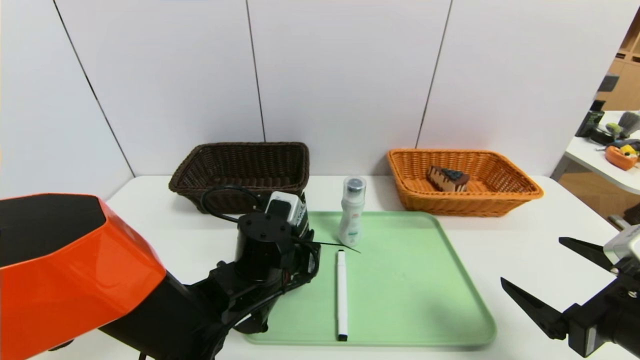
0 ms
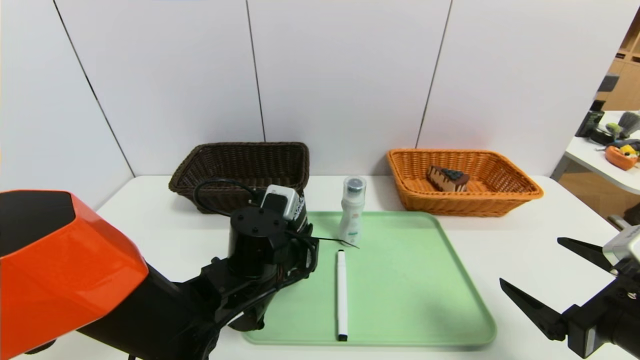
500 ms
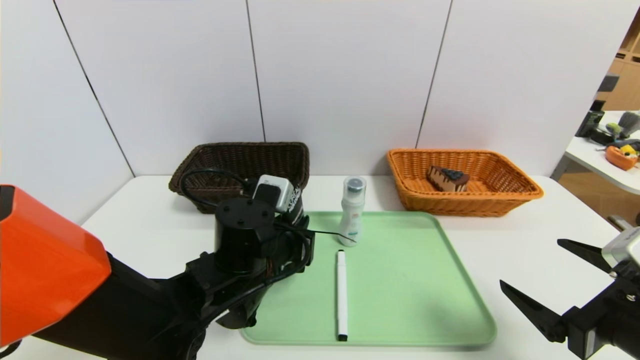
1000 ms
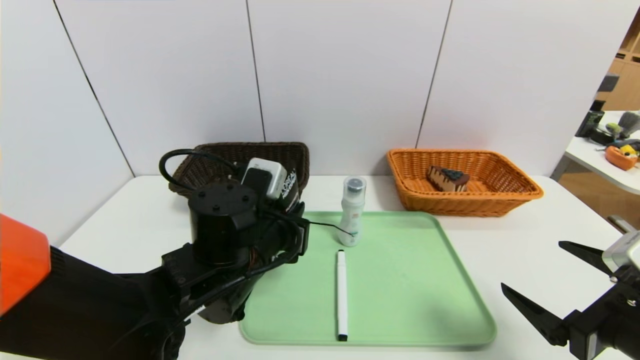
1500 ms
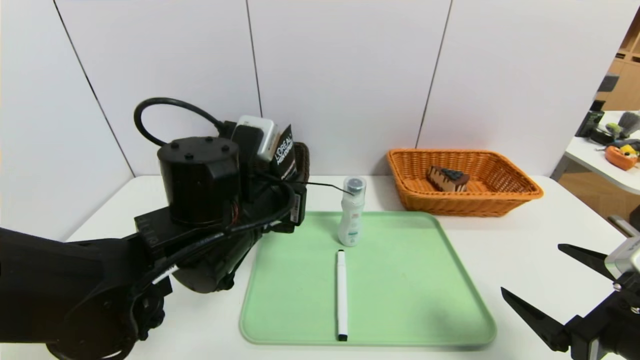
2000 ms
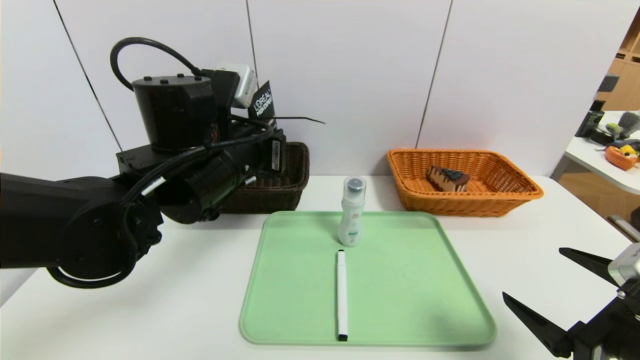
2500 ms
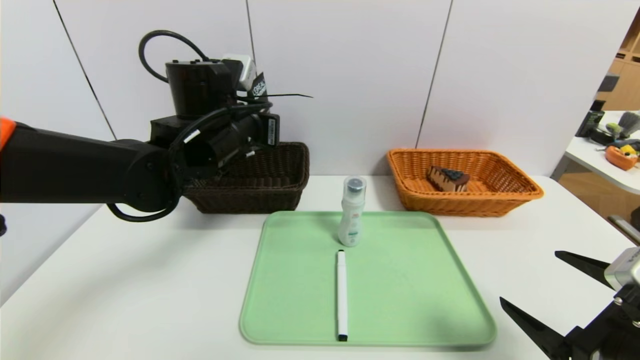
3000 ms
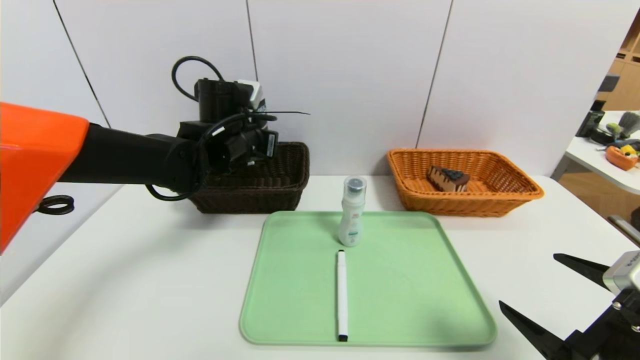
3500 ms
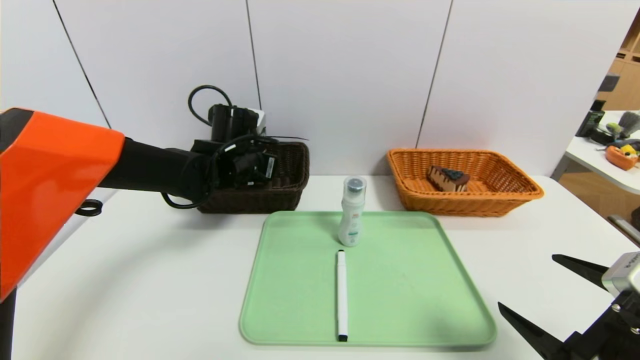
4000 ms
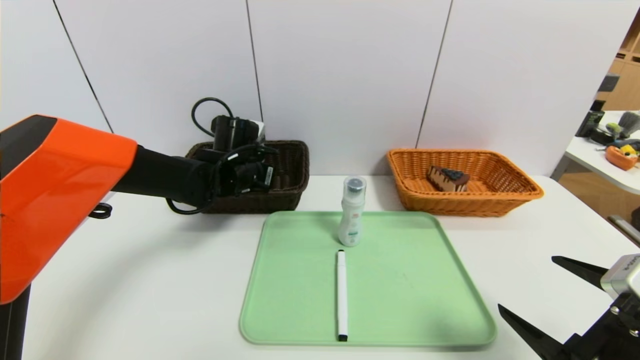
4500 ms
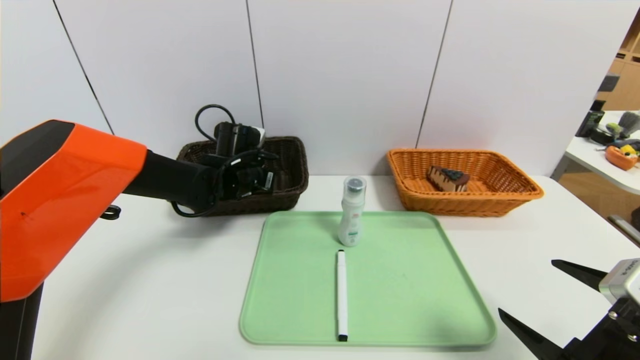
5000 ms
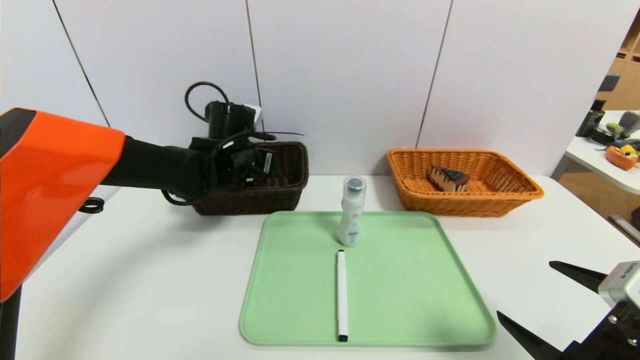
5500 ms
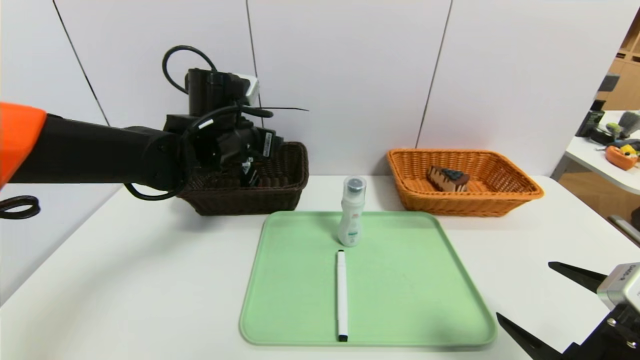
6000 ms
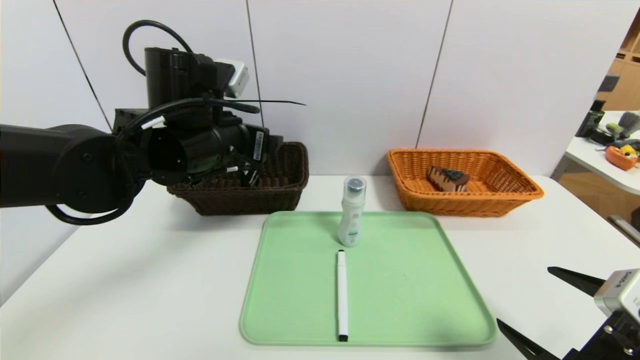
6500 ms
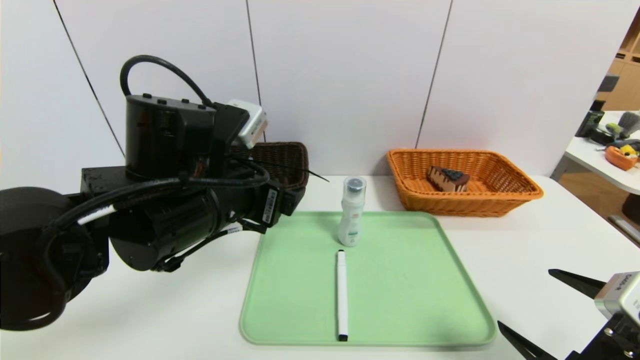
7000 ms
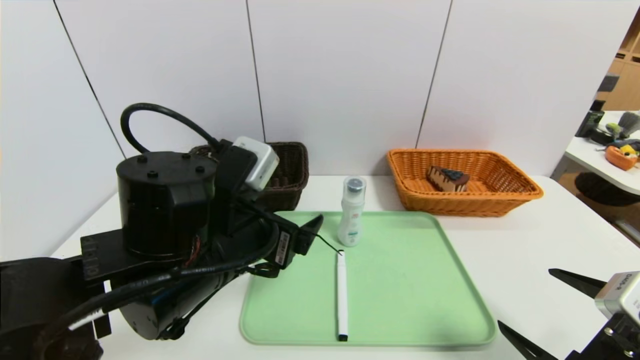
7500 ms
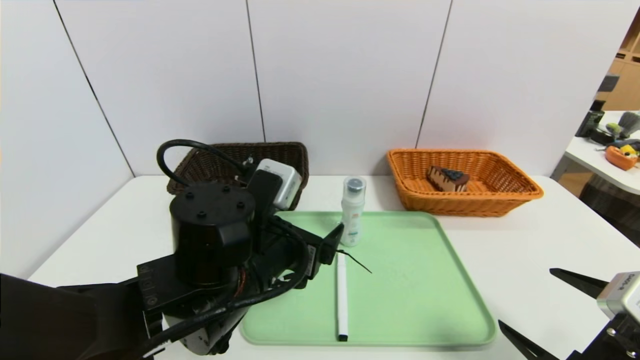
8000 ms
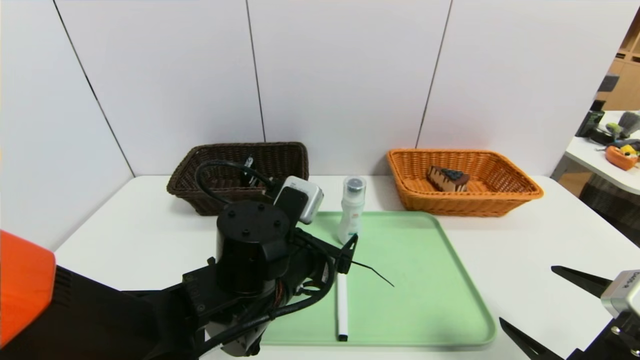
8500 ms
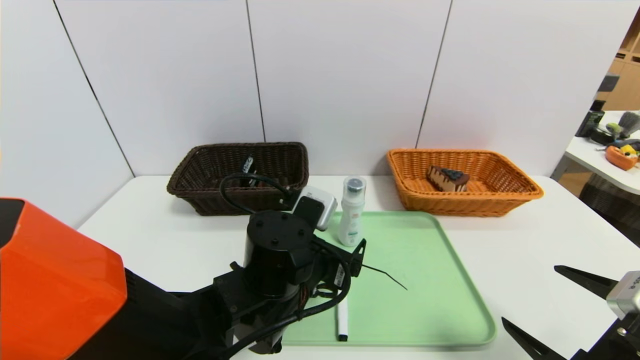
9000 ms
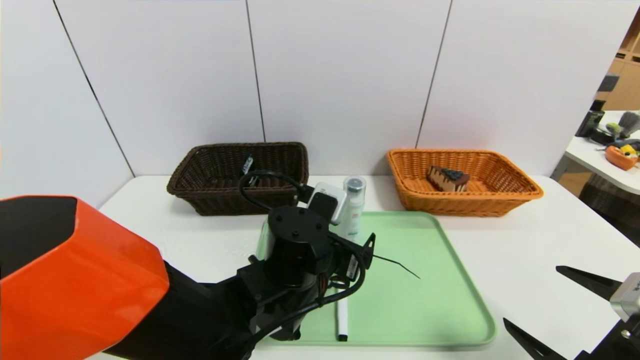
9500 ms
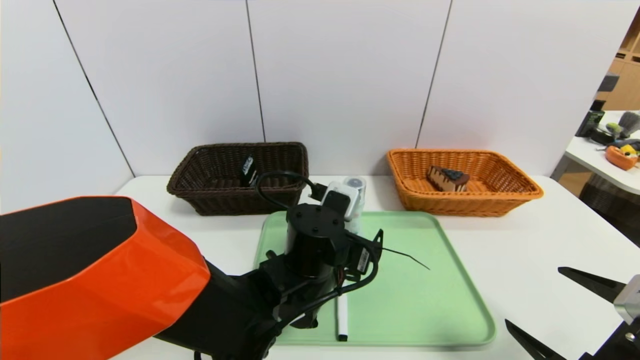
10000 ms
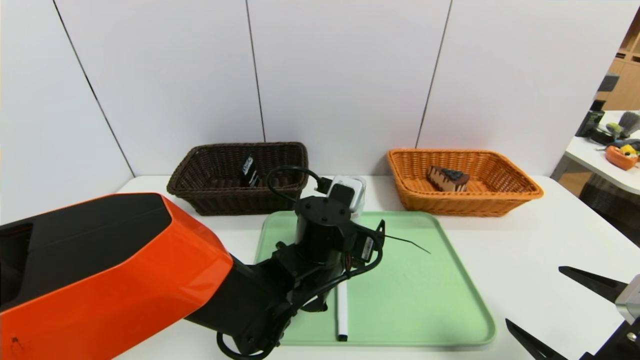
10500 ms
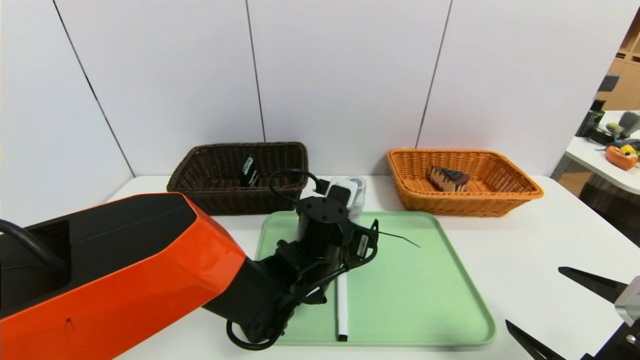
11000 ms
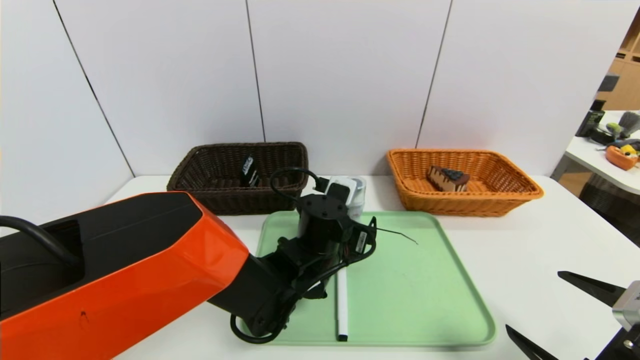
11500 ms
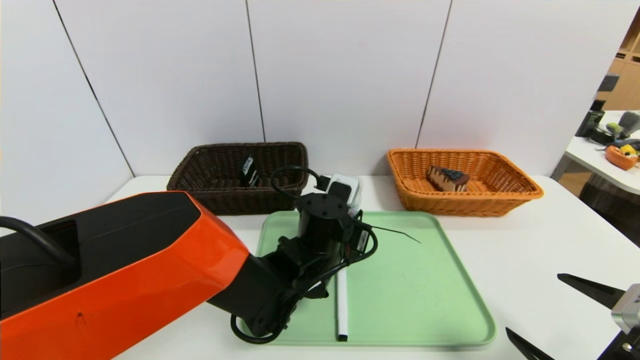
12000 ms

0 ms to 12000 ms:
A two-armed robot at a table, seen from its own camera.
Task of the whole recording: place the food in the right basket with the right gripper, and place the non food items in the left basket with the left gripper.
Step, 0 ms to 6500 ms: Grasp the soft cleanser and put it in the left basket.
0 ms to 2000 ms: The left gripper shifts approximately 10 cm upward.
2000 ms to 4000 ms: The left gripper moves forward, roughly 15 cm.
4000 ms to 6000 ms: The left gripper shifts about 5 cm upward, and opens.
6000 ms to 8000 ms: The left gripper travels backward by about 15 cm.
8000 ms to 10000 ms: The left gripper shifts approximately 10 cm to the right and downward.
10000 ms to 12000 ms: The left gripper closes.

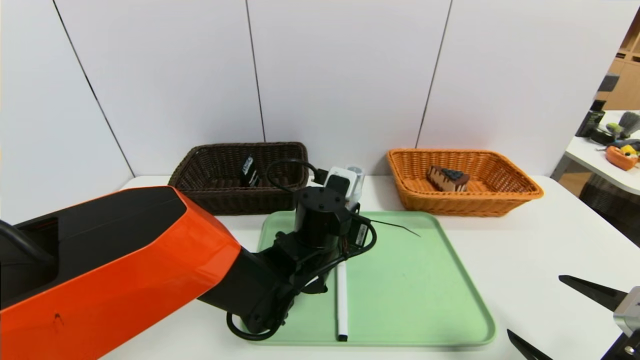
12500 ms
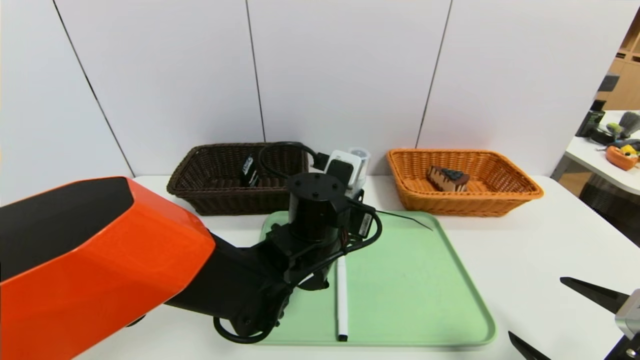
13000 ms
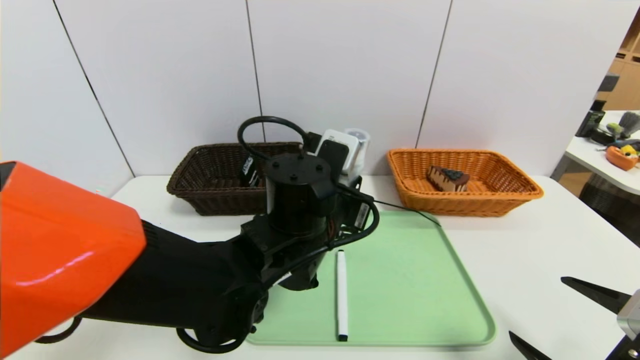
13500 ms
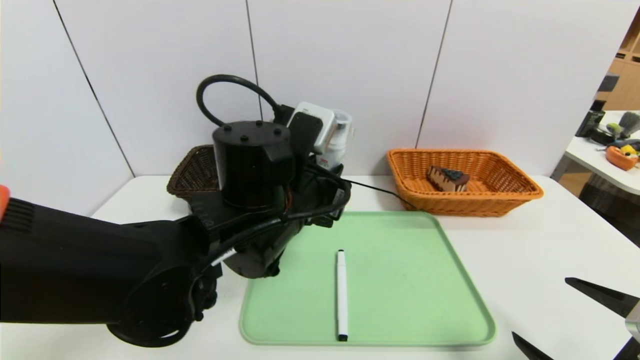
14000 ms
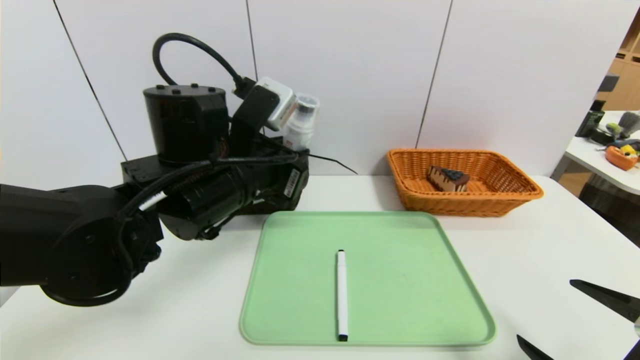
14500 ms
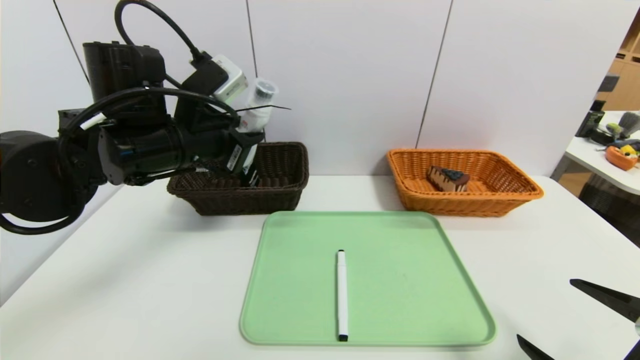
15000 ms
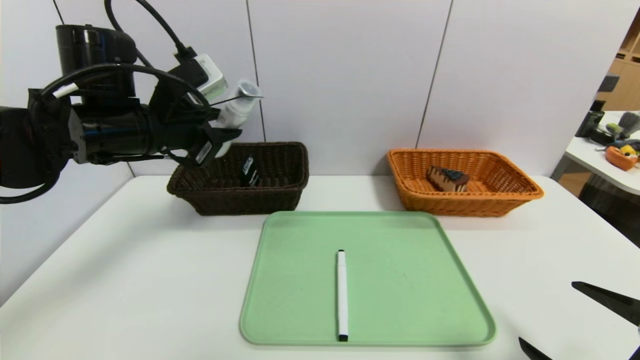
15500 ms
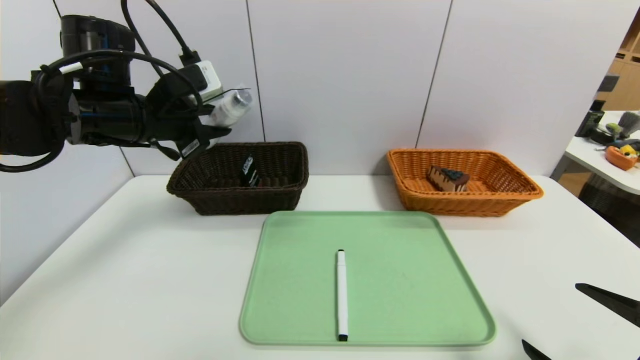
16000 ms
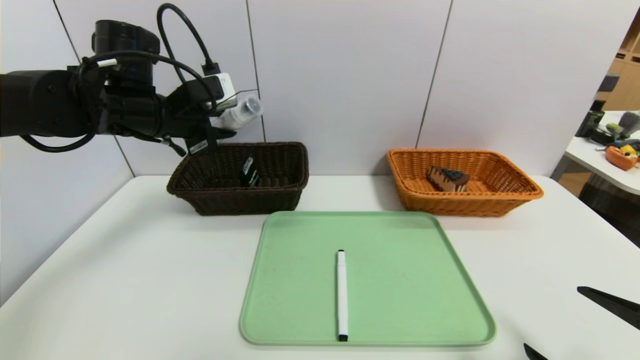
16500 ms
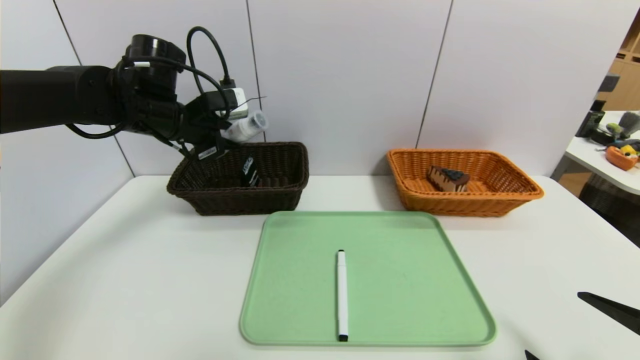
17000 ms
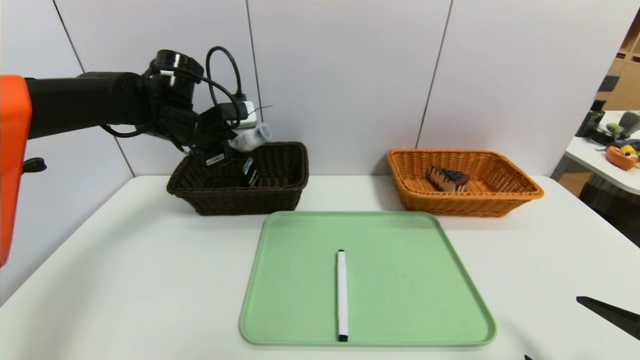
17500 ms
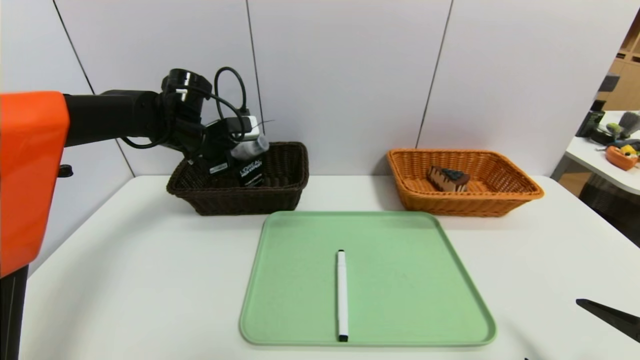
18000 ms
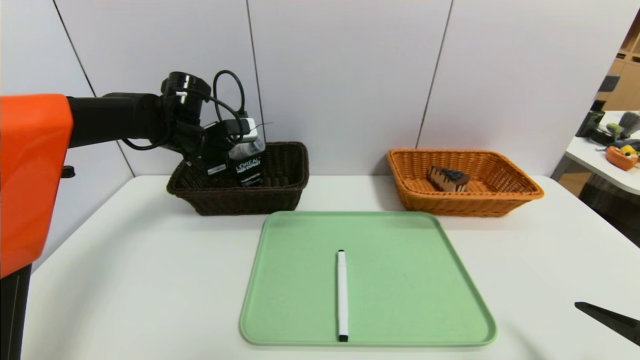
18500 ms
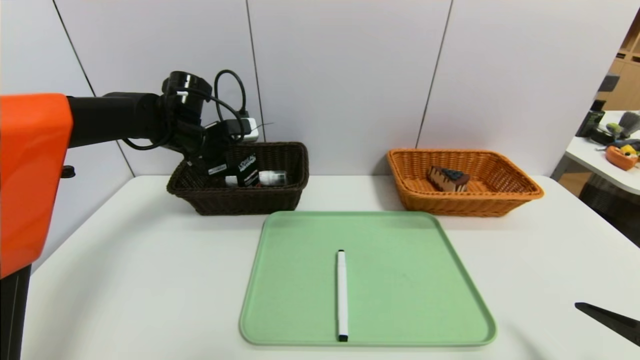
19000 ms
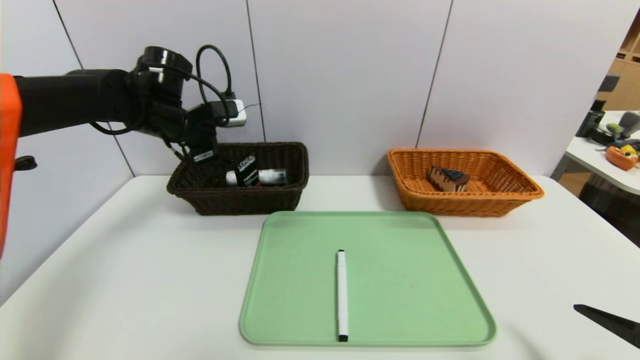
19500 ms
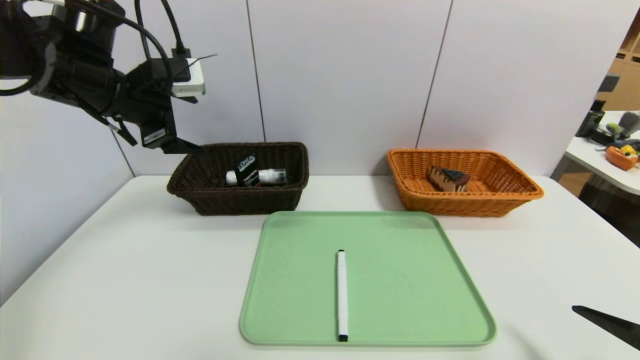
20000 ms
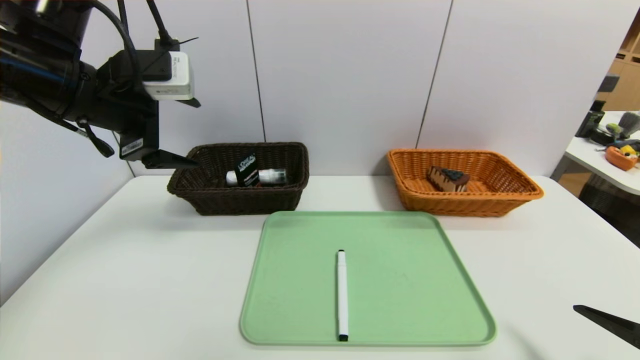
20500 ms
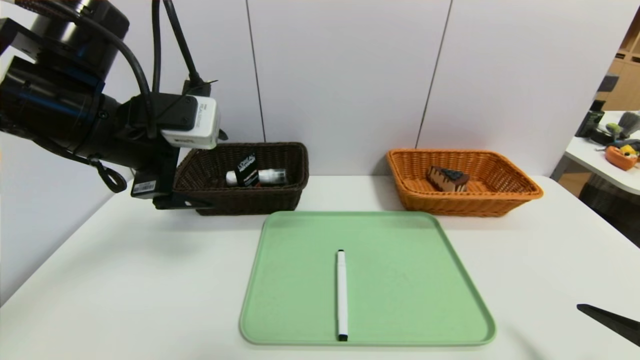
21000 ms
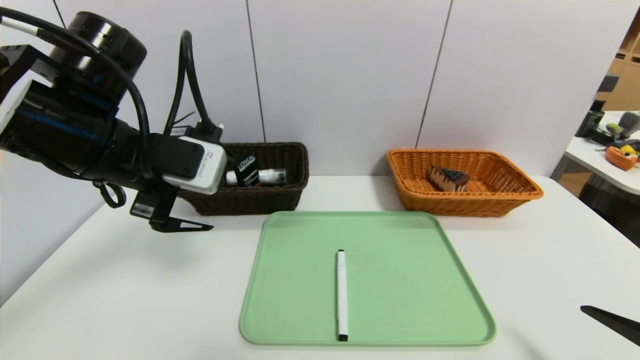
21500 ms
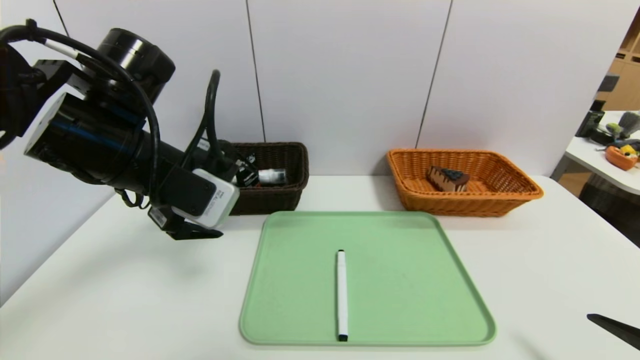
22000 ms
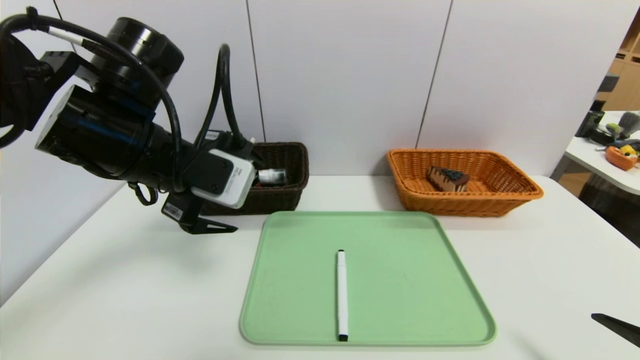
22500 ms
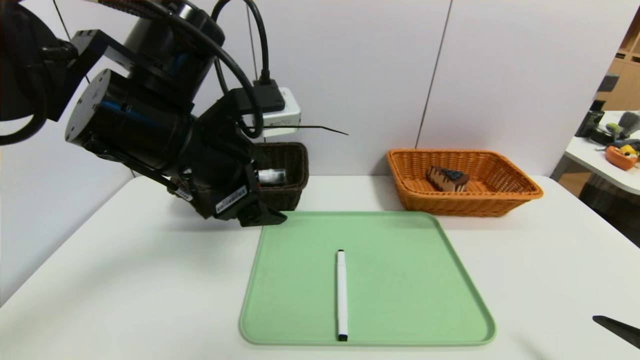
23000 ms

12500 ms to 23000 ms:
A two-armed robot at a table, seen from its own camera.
Task of the whole recording: place the food in the right basket with the right gripper, and place the non food items in the left basket with the left gripper.
Step, 12500 ms to 20000 ms: Grasp the washing liquid and put it in the left basket.
12500 ms to 14500 ms: The left gripper heads upward and to the left, covering approximately 15 cm.
14500 ms to 16500 ms: The left gripper travels to the left and forward by about 15 cm.
16500 ms to 19000 ms: The left gripper heads forward and downward, covering some 10 cm, and opens its fingers.
19000 ms to 21000 ms: The left gripper shifts about 20 cm backward and upward.
21000 ms to 23000 ms: The left gripper is displaced to the right by approximately 10 cm.
